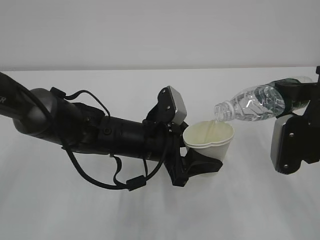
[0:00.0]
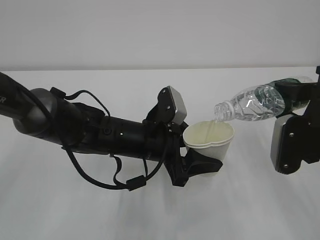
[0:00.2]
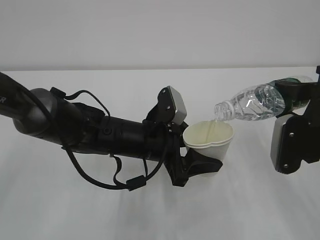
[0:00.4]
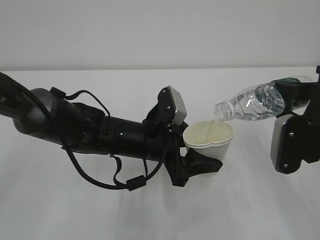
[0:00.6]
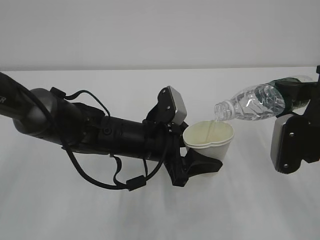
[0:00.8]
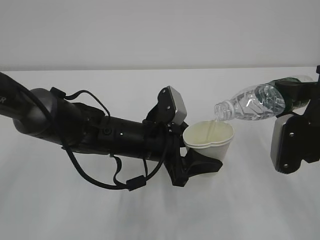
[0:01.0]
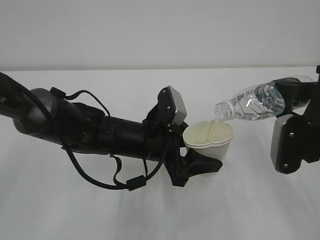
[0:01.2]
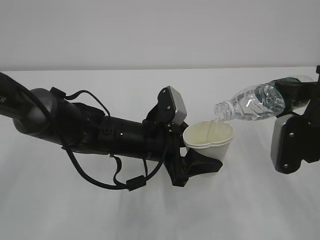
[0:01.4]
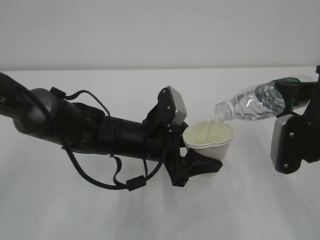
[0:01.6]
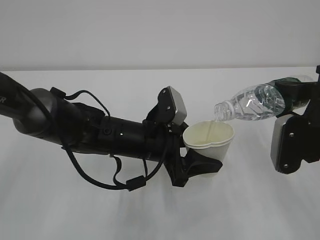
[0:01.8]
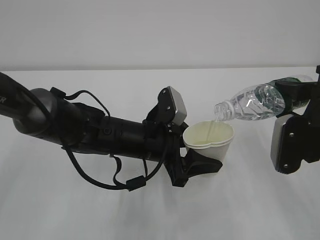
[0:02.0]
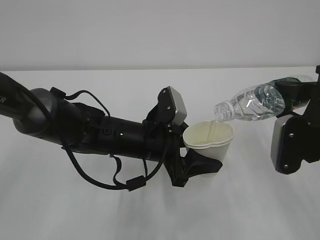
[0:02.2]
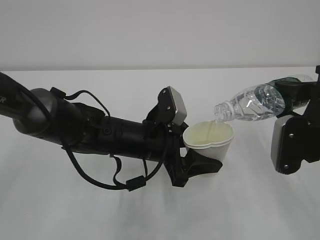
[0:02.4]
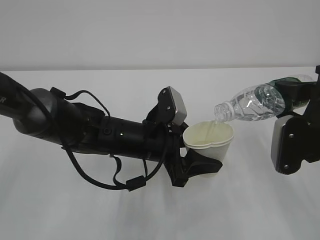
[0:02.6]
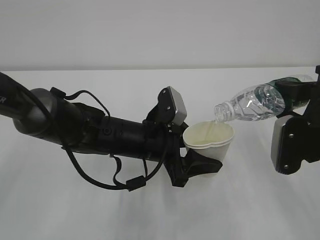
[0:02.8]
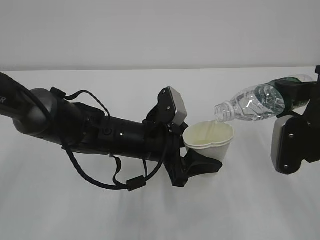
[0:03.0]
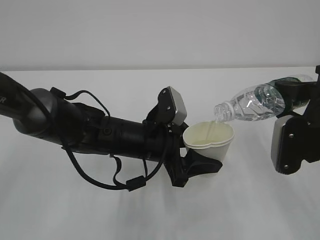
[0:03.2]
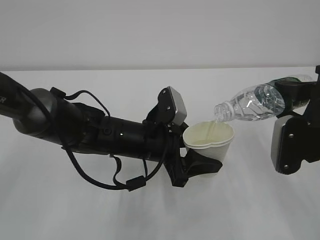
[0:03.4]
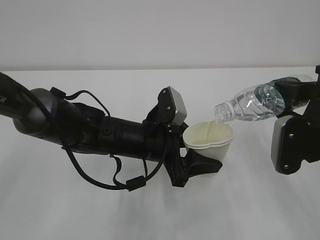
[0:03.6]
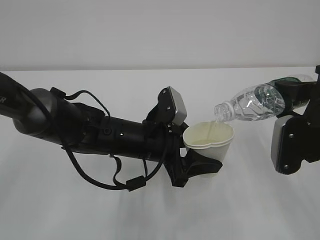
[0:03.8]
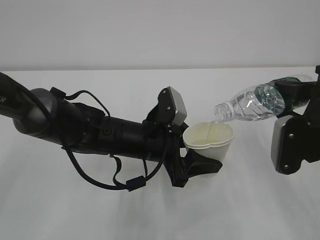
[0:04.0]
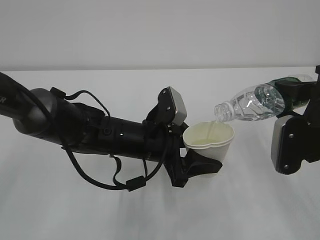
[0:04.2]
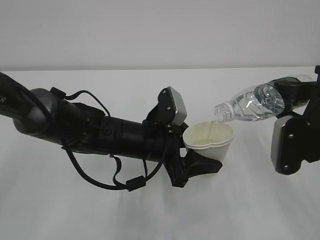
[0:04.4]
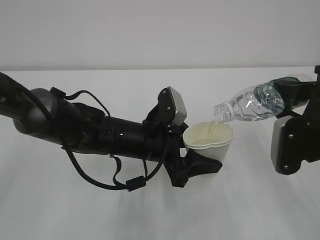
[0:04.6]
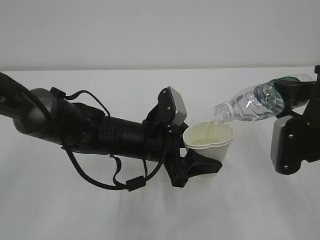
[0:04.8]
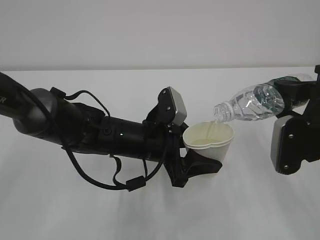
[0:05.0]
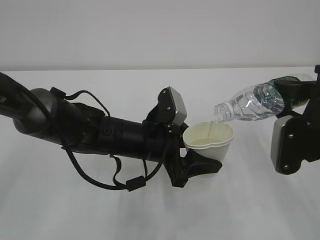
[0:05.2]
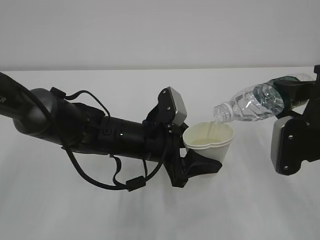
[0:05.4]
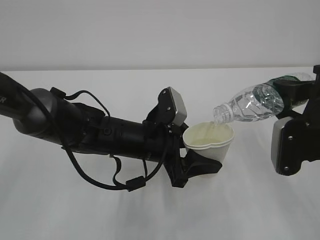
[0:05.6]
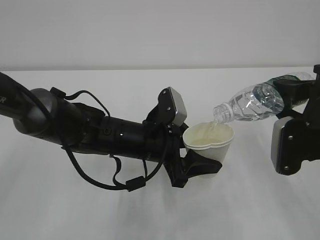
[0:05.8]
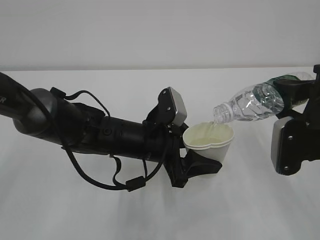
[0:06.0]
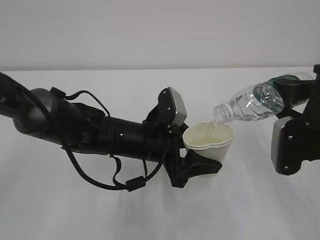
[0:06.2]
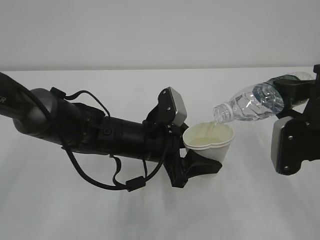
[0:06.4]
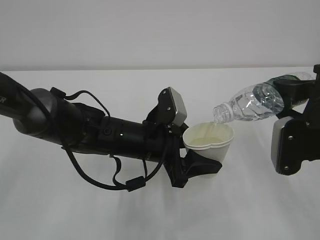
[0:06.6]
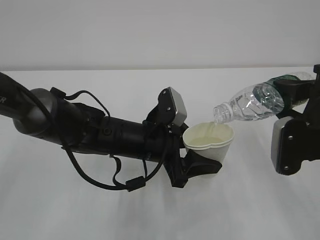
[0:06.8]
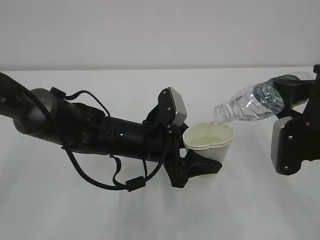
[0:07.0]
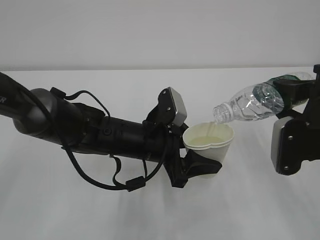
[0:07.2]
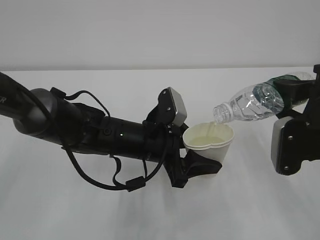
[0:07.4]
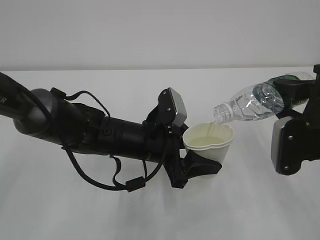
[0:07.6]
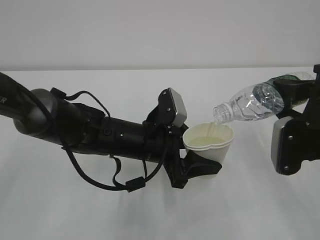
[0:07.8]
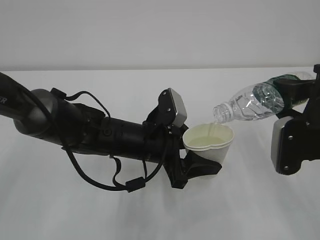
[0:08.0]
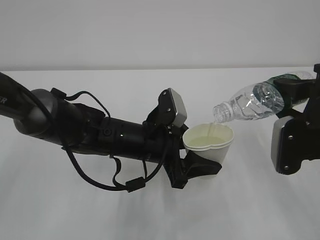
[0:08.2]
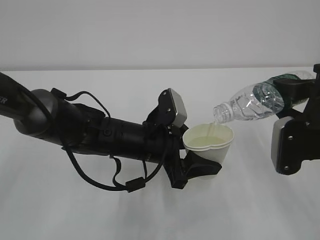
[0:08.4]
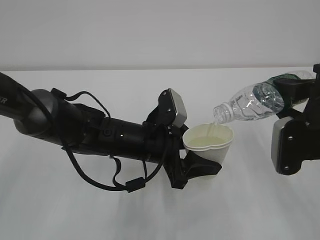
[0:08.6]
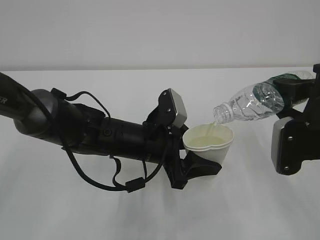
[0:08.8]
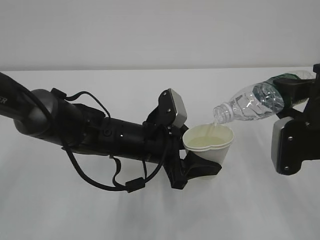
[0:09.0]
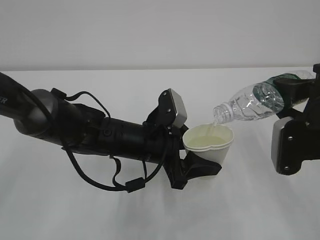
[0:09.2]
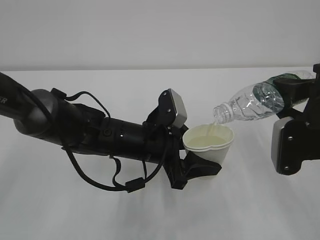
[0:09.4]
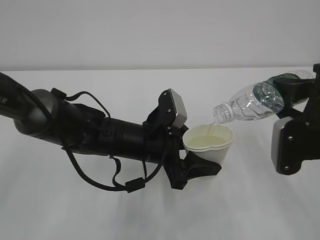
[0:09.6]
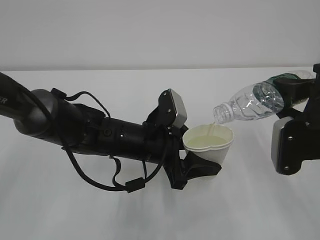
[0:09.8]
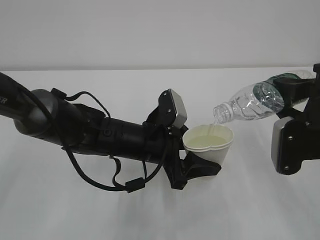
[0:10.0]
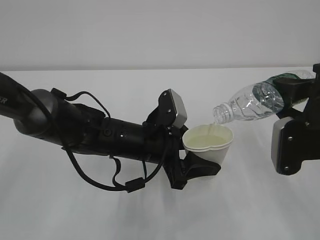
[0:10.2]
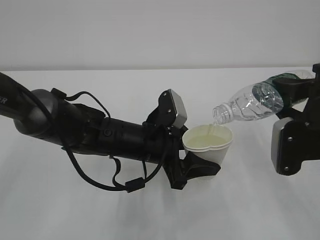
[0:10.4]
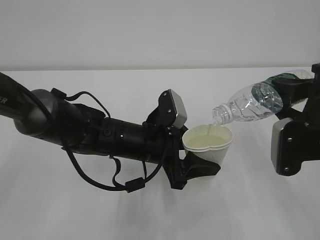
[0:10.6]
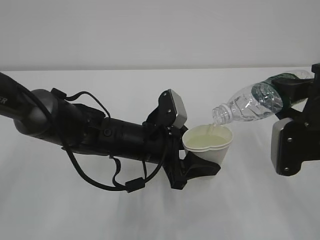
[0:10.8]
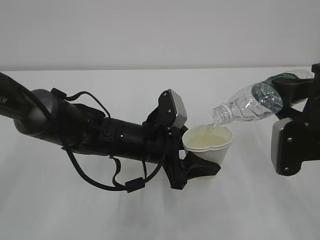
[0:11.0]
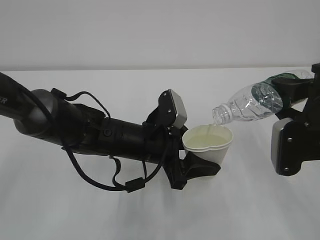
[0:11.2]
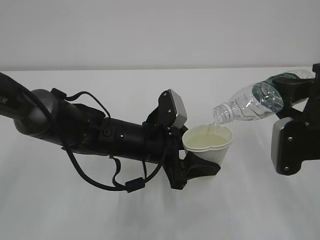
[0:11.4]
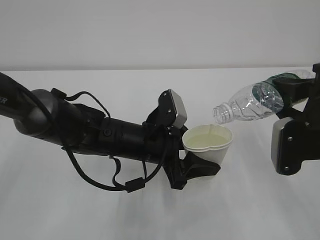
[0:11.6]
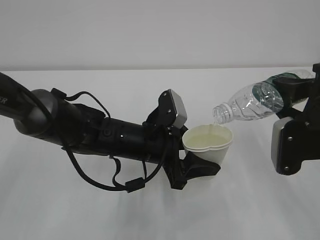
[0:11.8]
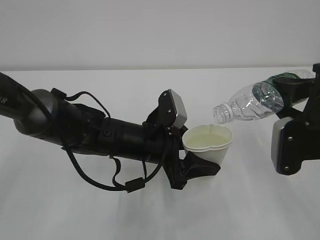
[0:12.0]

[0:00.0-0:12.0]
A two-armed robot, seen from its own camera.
0:00.0 to 0:07.6: Both grippers stay about where they are.
0:07.6 to 0:12.0: Both grippers stay put.

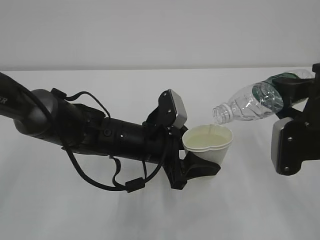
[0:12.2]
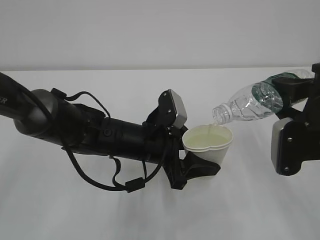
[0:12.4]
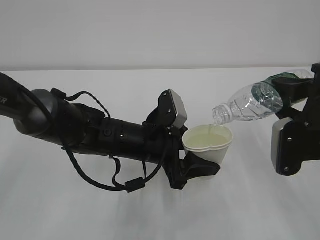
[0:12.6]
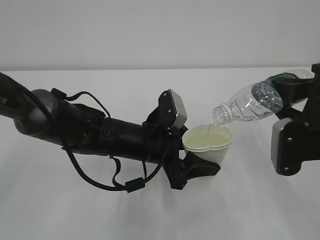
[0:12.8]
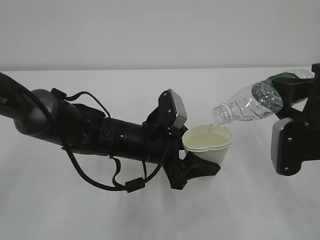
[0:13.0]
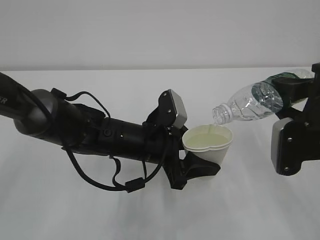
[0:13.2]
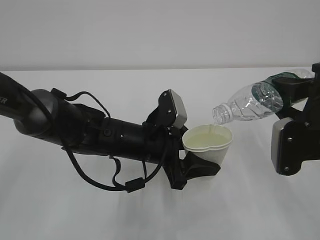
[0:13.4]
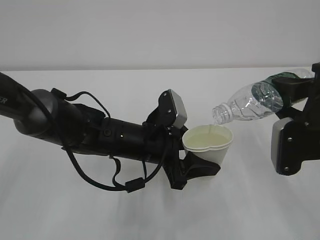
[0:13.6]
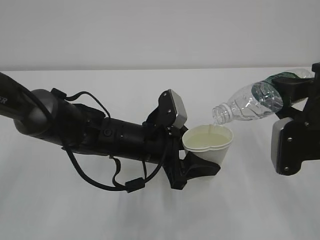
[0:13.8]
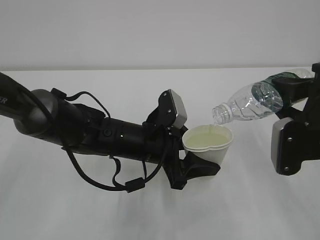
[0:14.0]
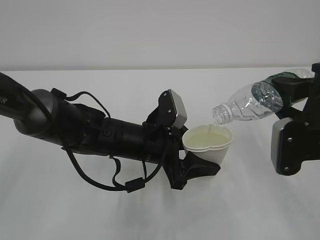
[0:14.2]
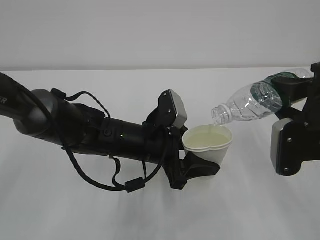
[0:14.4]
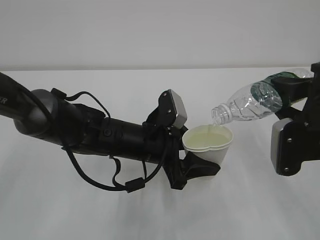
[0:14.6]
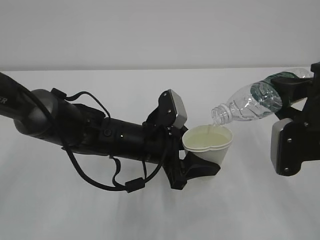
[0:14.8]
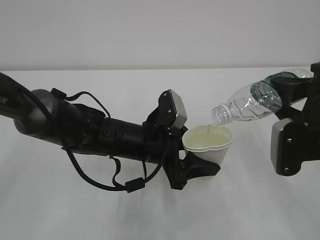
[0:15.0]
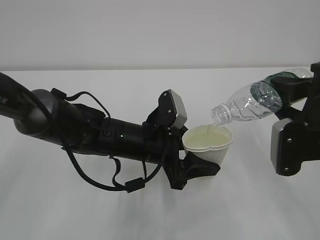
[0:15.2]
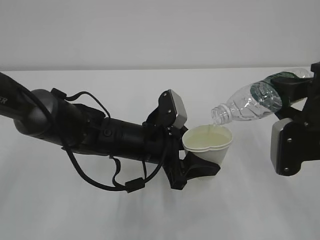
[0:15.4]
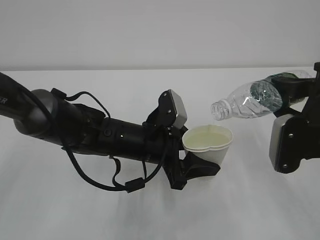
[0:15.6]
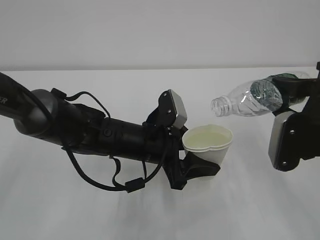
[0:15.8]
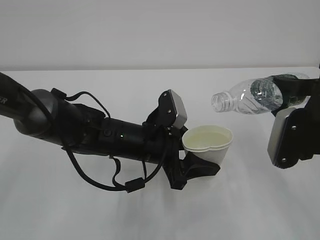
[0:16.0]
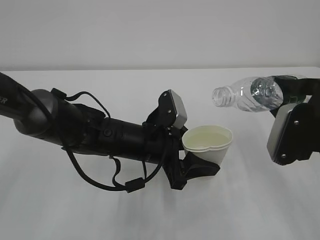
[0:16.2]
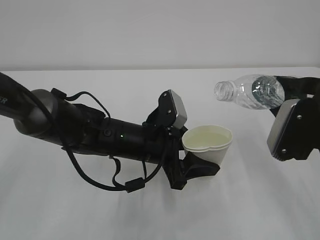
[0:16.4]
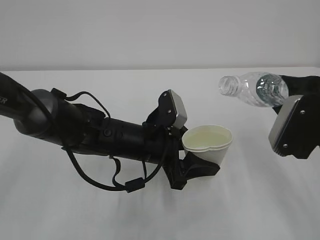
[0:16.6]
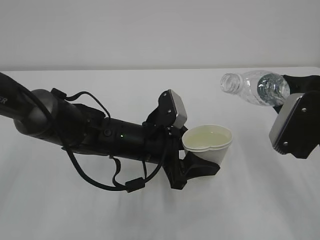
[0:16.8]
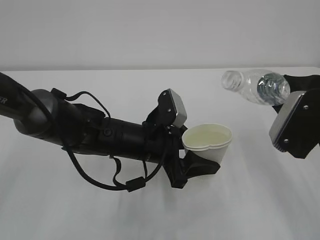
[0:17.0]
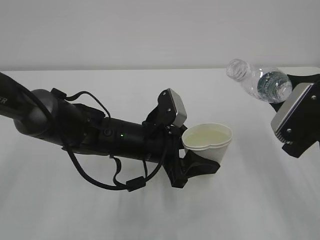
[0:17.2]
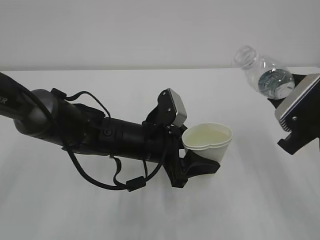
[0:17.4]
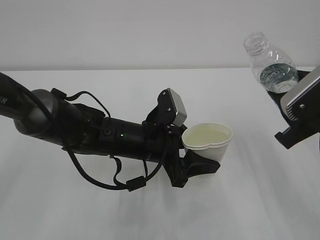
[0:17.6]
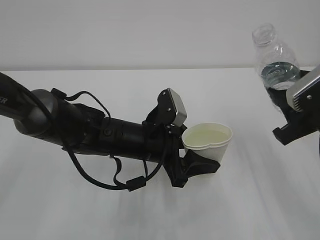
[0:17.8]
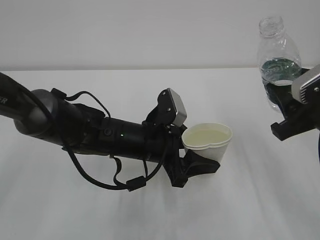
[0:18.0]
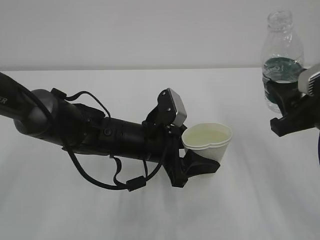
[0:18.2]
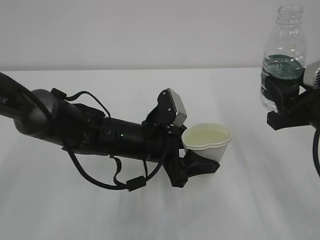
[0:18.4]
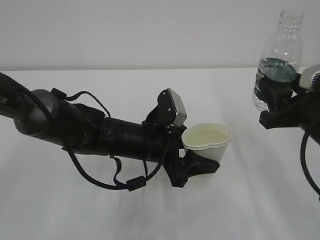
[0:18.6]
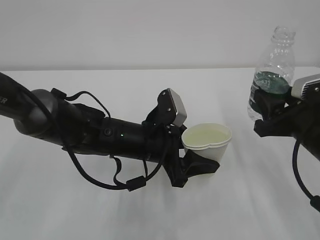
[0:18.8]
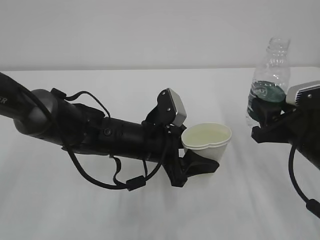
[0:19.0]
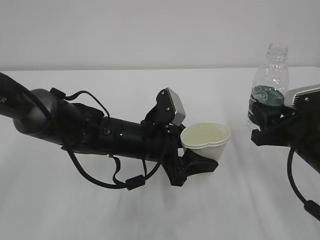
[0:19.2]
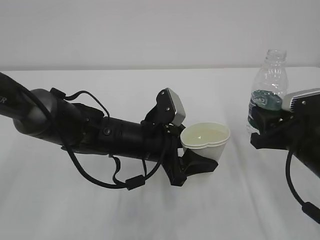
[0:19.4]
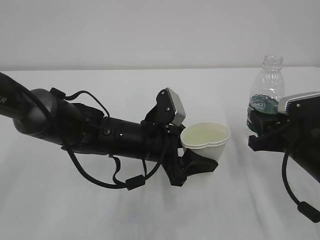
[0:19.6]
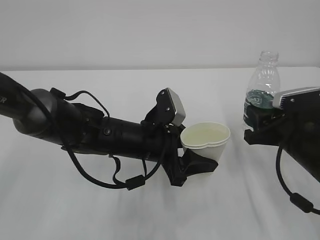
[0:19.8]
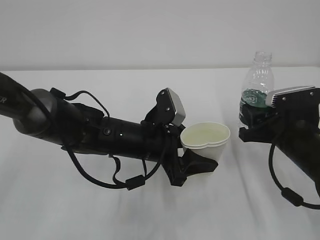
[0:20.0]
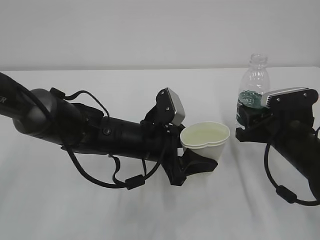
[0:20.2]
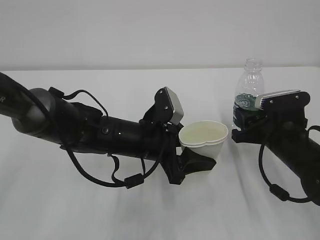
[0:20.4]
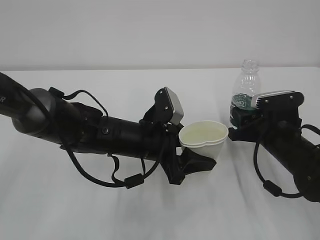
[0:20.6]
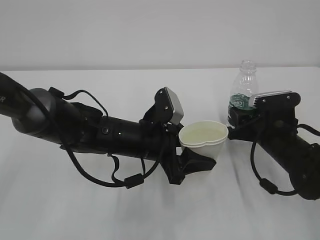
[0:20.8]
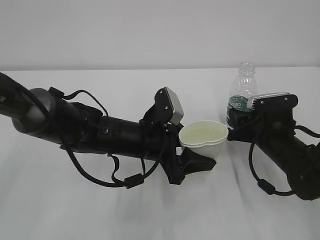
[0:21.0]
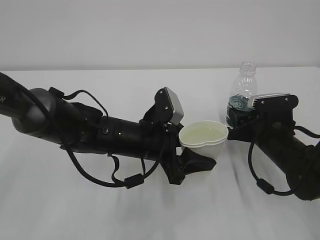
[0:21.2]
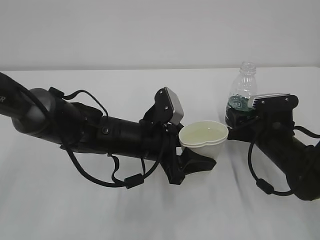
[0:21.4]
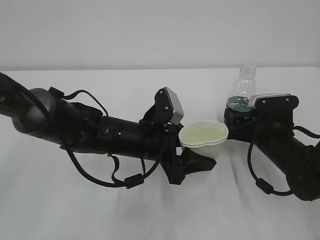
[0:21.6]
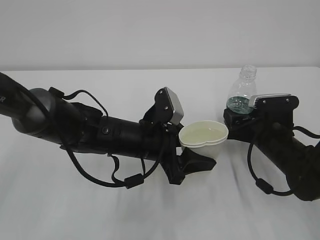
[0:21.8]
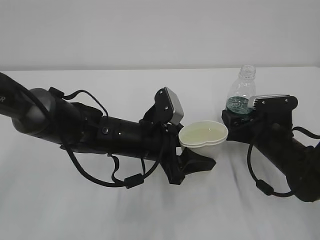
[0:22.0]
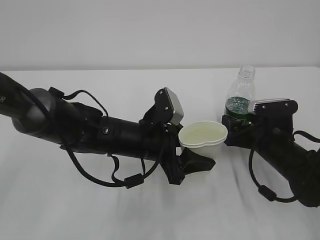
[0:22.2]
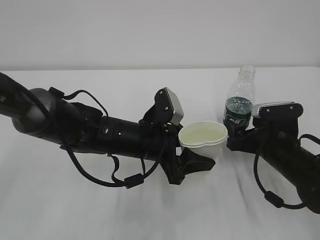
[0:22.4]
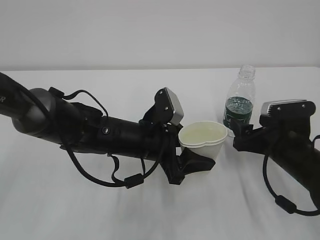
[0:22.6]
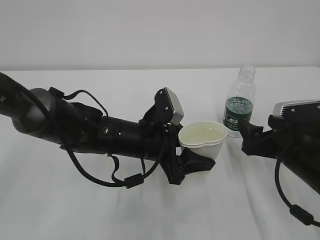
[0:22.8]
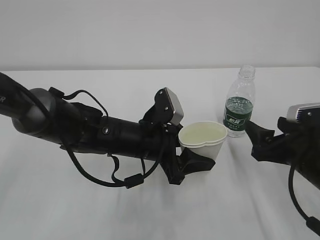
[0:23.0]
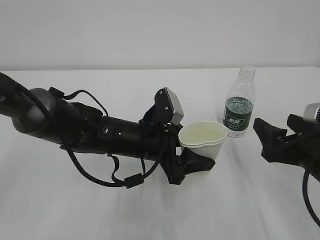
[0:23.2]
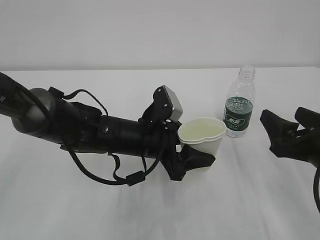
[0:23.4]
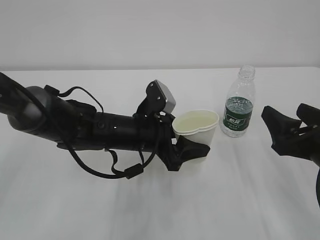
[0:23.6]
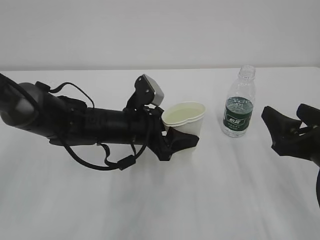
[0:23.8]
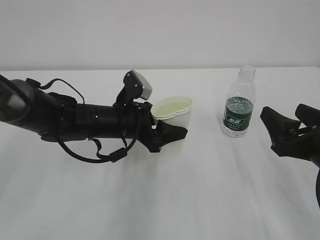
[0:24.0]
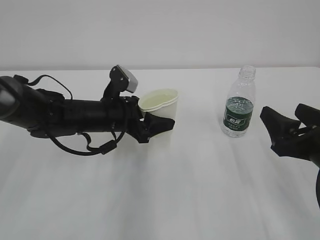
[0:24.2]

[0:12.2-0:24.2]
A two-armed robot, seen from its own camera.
0:12.2 to 0:15.2: Neither gripper changes place.
0:18.2 to 0:19.8: The right gripper shifts about 10 cm downward.
0:19.8 to 0:21.2: The right gripper goes about 5 cm forward and downward.
0:21.2 to 0:22.6: The right gripper opens its fingers.
0:22.6 to 0:24.2: The right gripper goes about 10 cm backward and upward, while the left gripper is displaced to the left and forward by approximately 10 cm.
